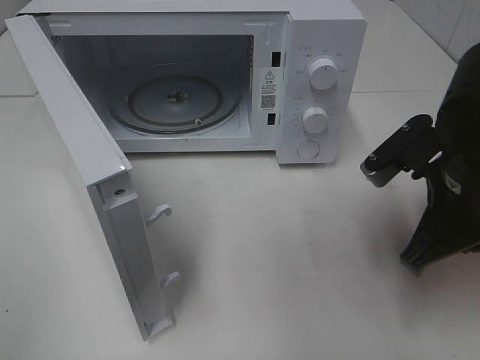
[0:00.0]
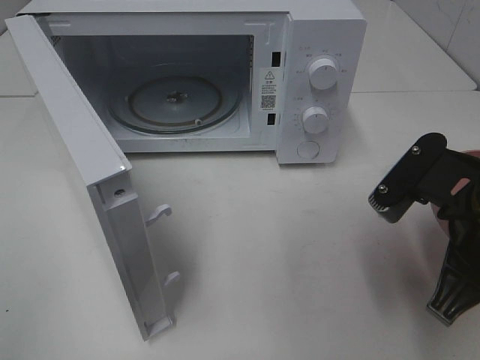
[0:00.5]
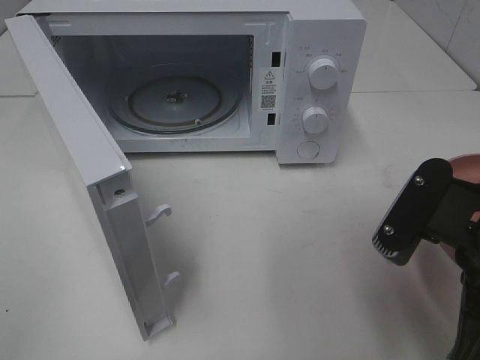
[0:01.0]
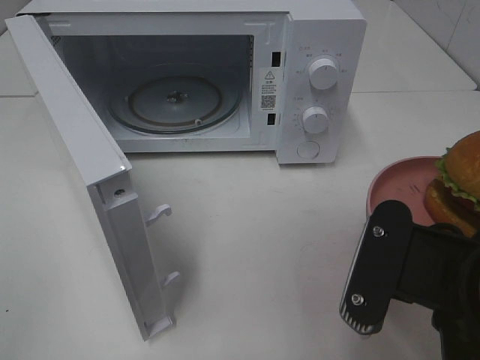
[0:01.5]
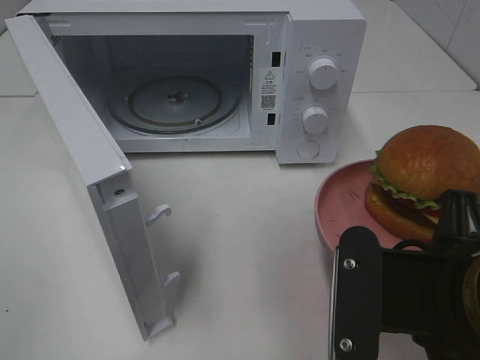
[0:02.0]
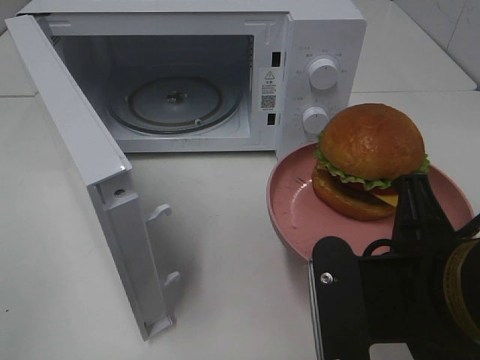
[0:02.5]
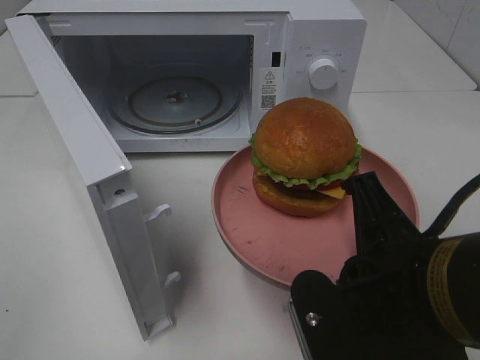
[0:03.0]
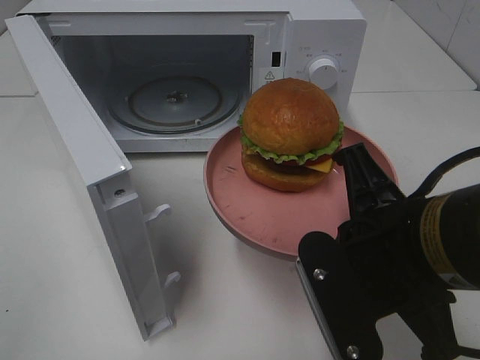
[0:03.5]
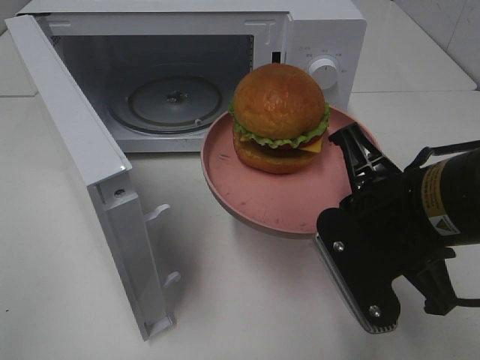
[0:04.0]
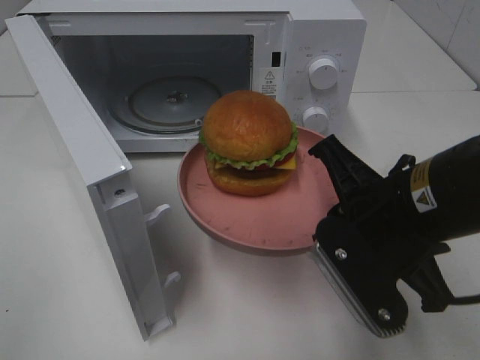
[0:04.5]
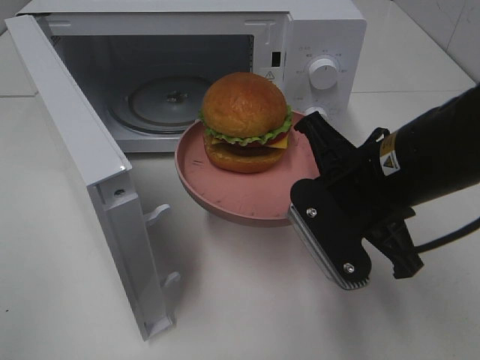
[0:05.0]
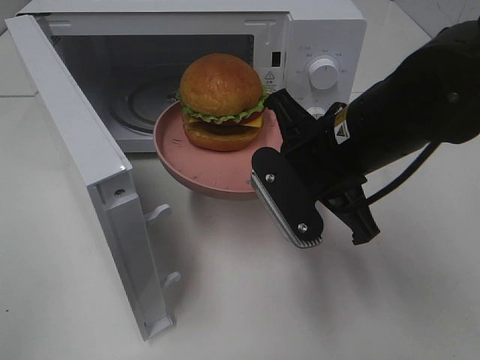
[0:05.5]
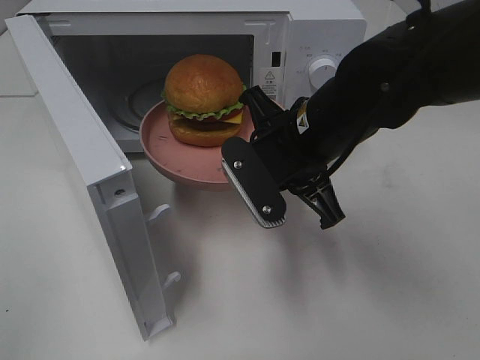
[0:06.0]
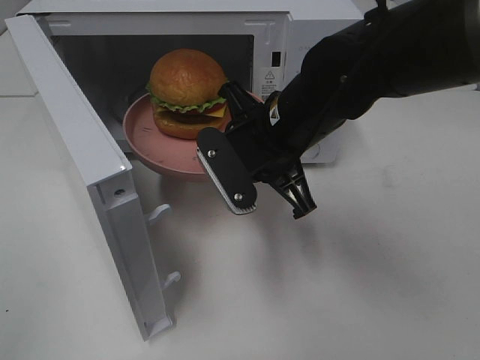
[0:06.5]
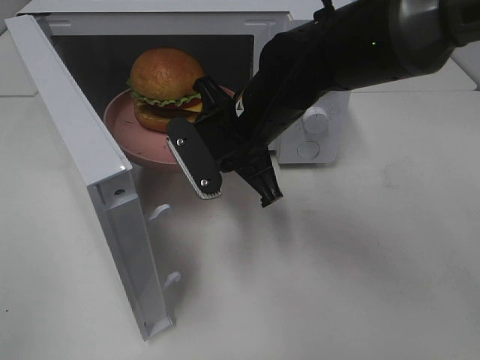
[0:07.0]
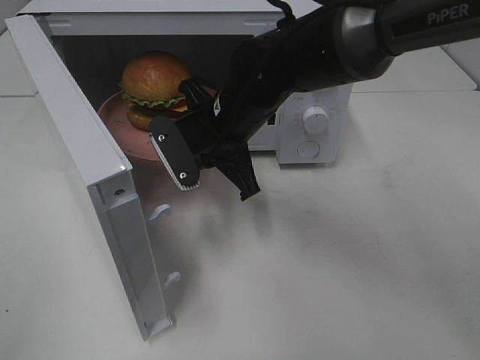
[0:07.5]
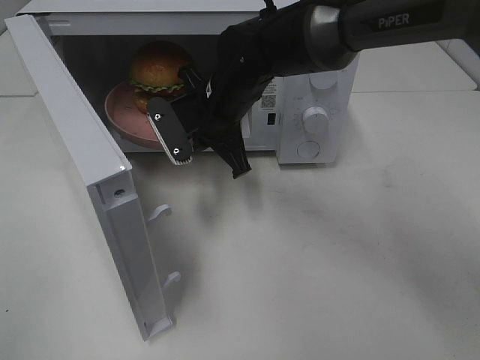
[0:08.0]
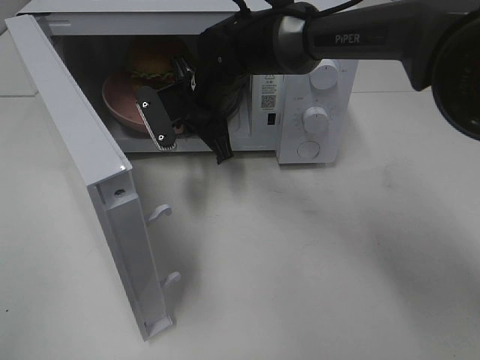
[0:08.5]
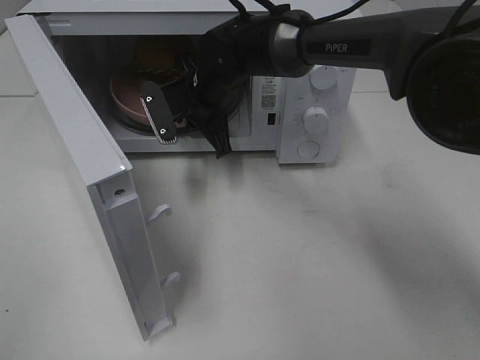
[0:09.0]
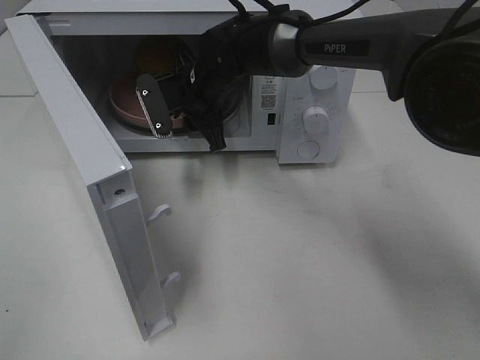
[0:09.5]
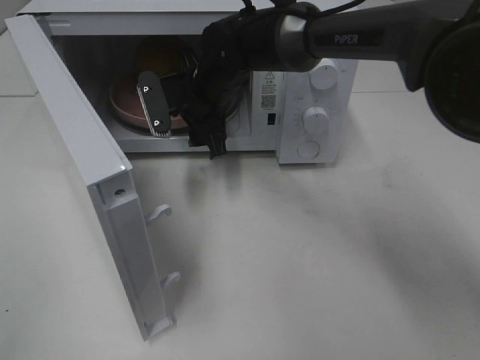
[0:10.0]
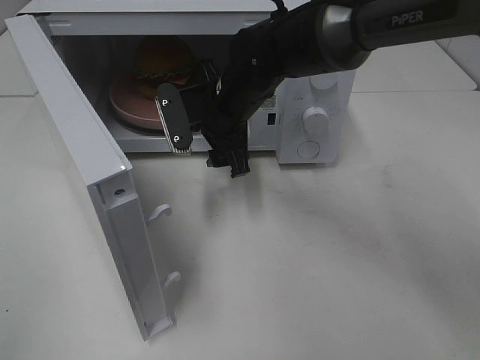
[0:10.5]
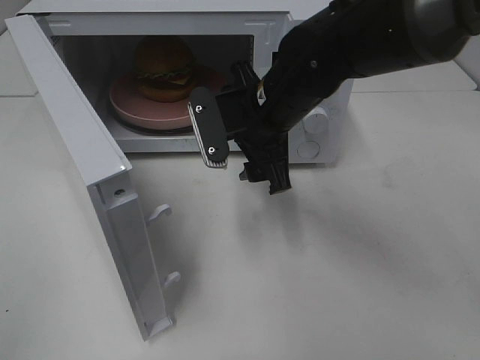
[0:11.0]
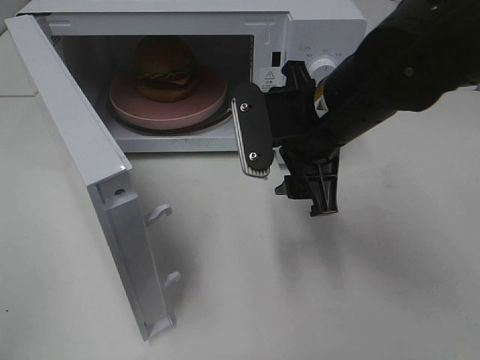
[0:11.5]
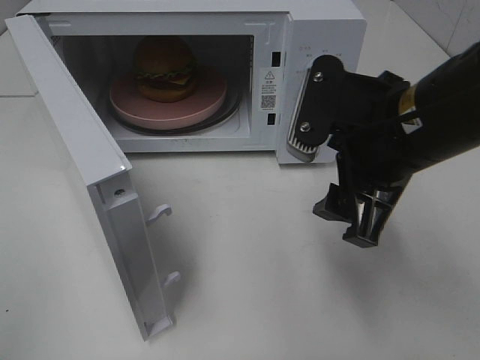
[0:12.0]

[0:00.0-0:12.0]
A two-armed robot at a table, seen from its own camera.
Task of the whole recording: Heat the burger.
Step, 0:00.0 to 0:09.5: Right hand: place the plate in the microwave.
0:00.0 to 0:02.0: The right gripper is displaced backward and to the left by about 15 cm.
0:02.0 to 0:04.0: The right gripper moves forward, roughly 10 cm.
0:04.0 to 0:06.0: The right gripper is displaced forward and to the left by approximately 10 cm.
0:06.0 to 0:08.0: The right gripper is displaced forward and to the left by about 15 cm.
0:08.0 to 0:10.0: The right gripper opens.
0:10.0 to 0:12.0: The right gripper goes some 25 cm backward and to the right.

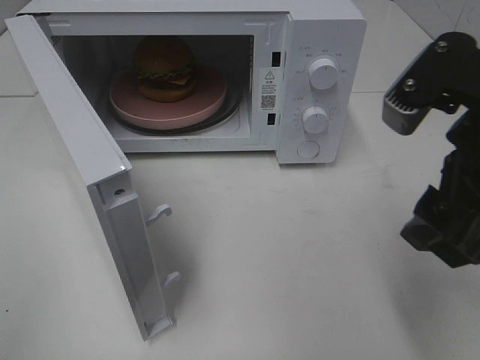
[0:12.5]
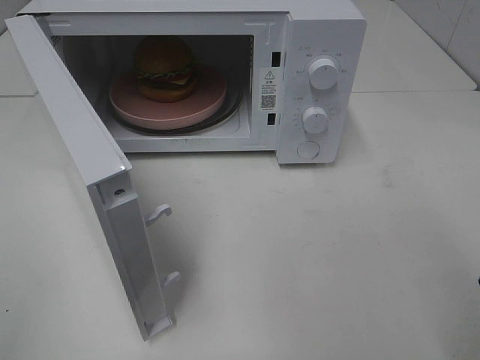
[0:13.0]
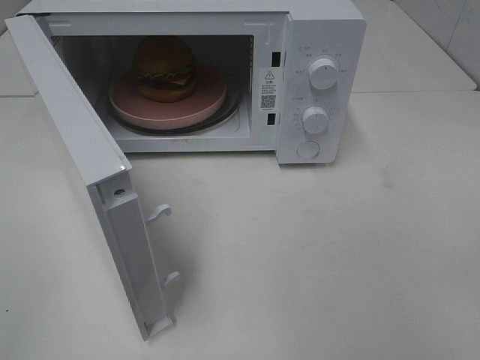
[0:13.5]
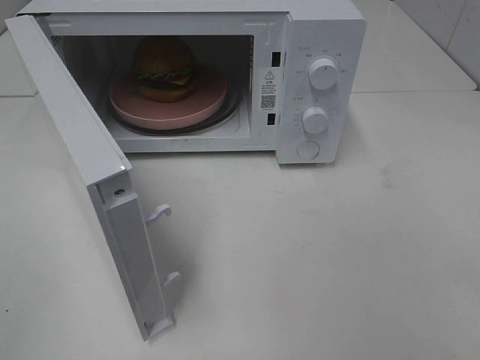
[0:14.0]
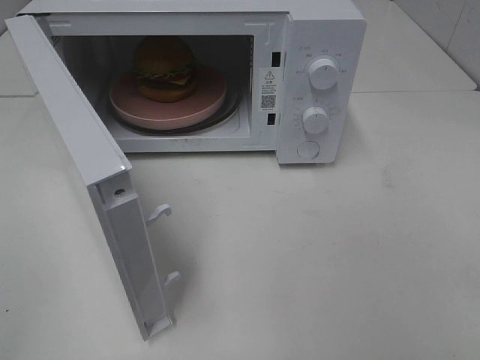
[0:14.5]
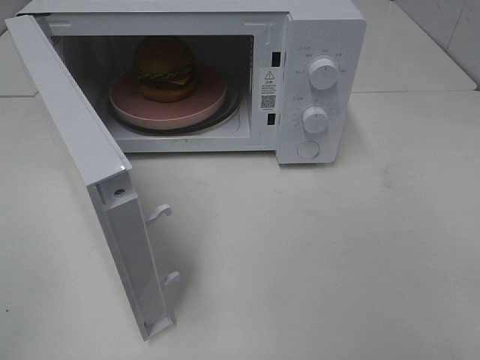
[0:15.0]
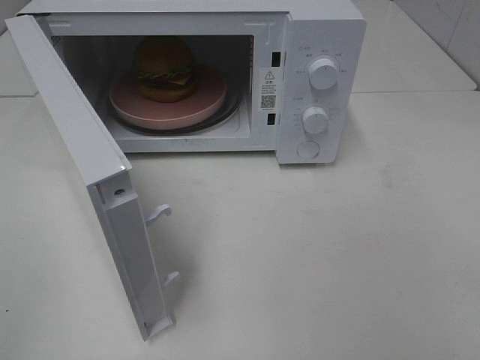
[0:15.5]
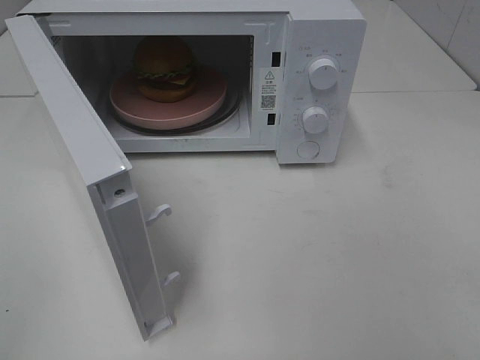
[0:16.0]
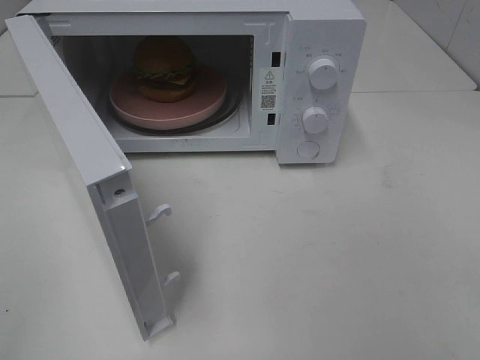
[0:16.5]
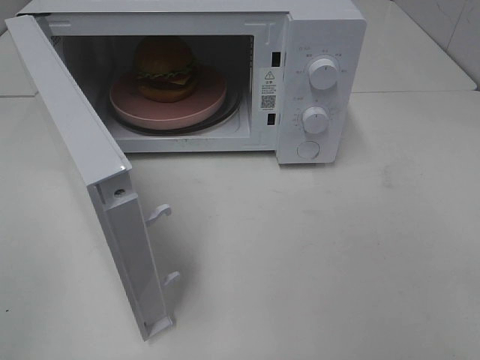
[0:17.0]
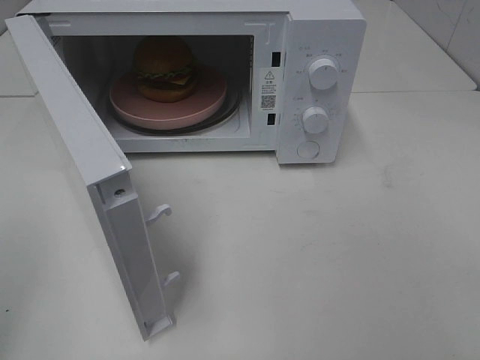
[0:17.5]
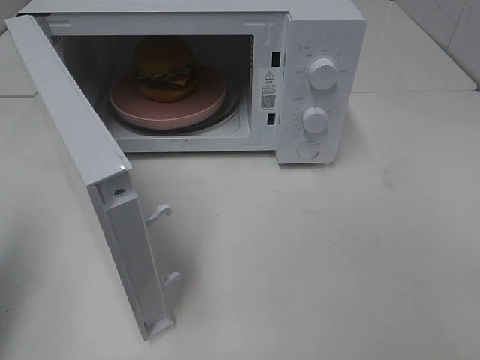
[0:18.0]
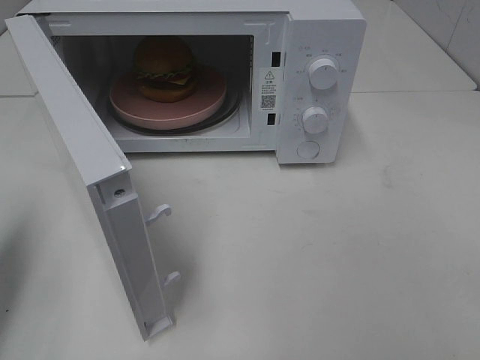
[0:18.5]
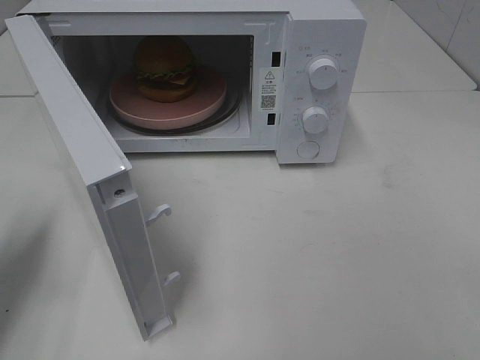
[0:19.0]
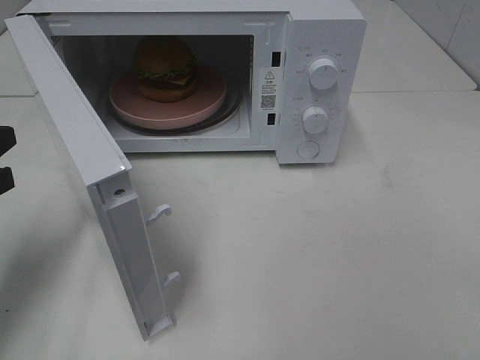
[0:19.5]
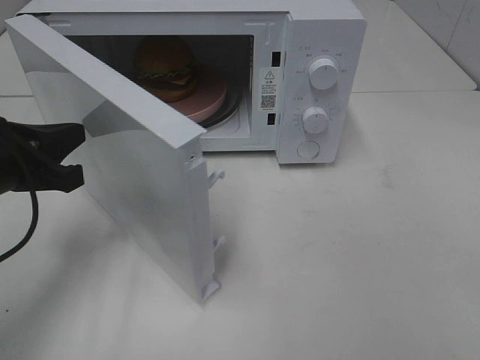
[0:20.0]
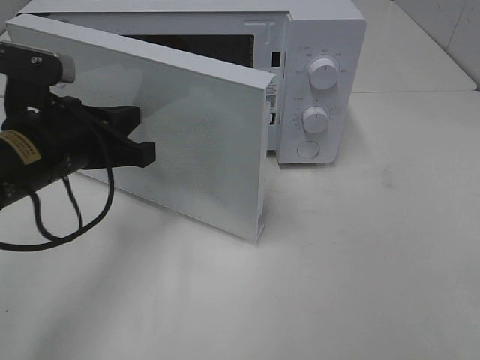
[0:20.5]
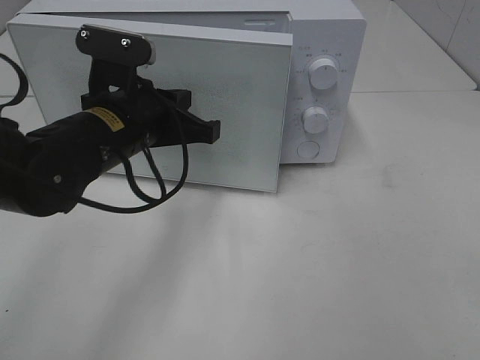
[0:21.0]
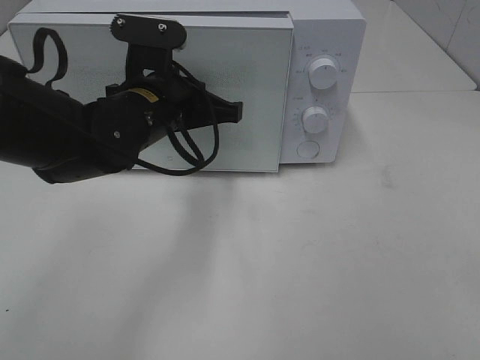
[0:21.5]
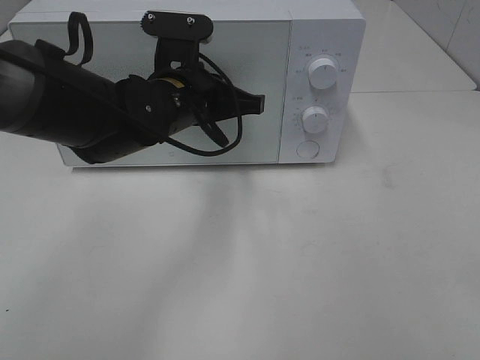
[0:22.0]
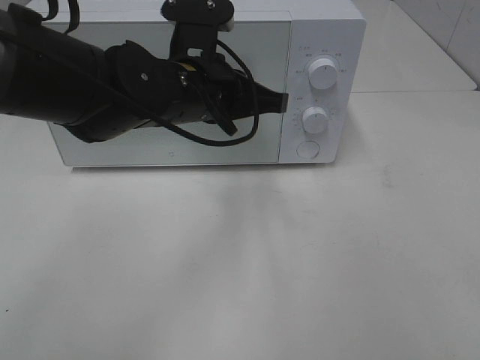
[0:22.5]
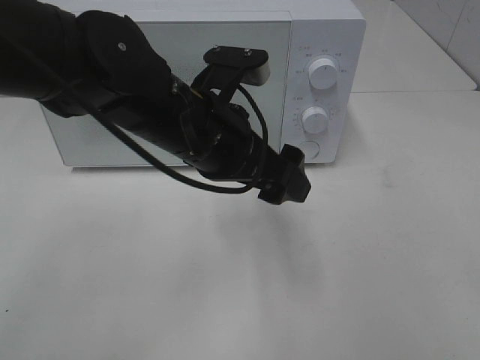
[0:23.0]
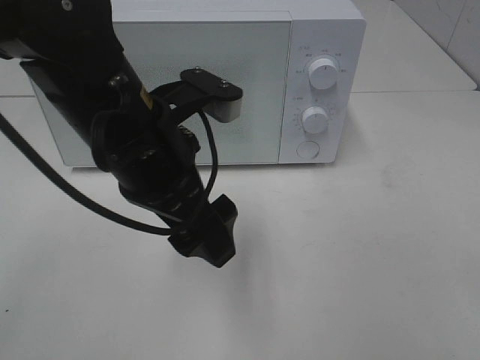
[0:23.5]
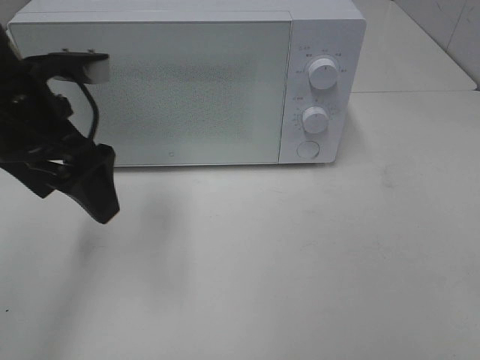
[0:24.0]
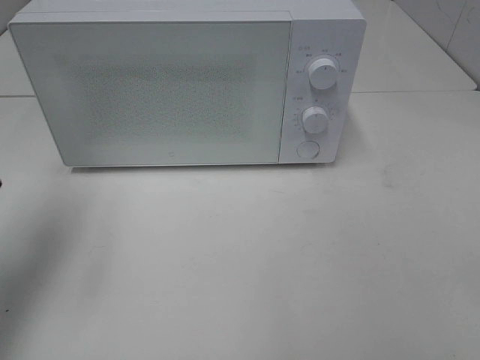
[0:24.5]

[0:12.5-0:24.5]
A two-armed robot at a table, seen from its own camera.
Task of the whole recording: Heat the burger.
Step, 0:12.5 to 0:22.5: Left hand: close the microwave door.
0:12.5 to 0:14.5: The right gripper heads backward and to the right, covering approximately 20 cm.
0:16.5 to 0:18.5: The left gripper shifts some 20 cm forward, and closes.
0:18.5 to 0:20.5: The left gripper shifts some 20 cm to the right and forward.
0:20.5 to 0:22.5: The left gripper travels to the right and forward by some 15 cm.
0:22.5 to 0:24.5: The left gripper shifts about 25 cm to the left, and opens up.

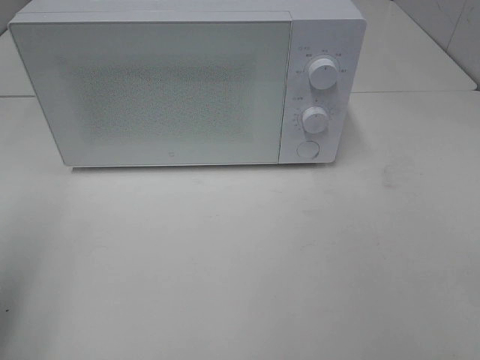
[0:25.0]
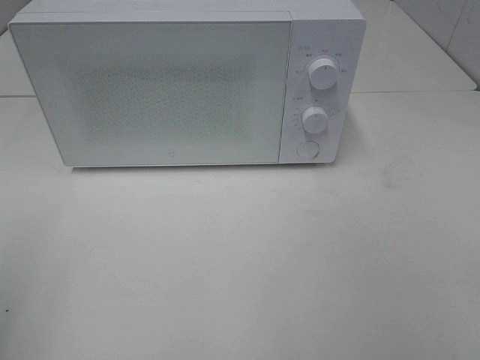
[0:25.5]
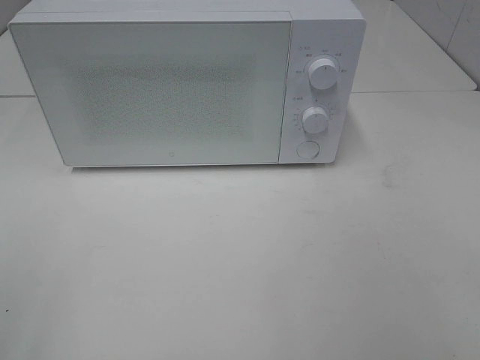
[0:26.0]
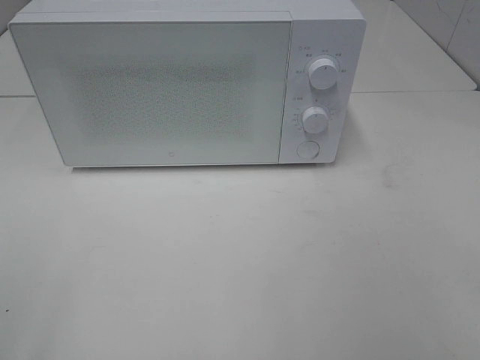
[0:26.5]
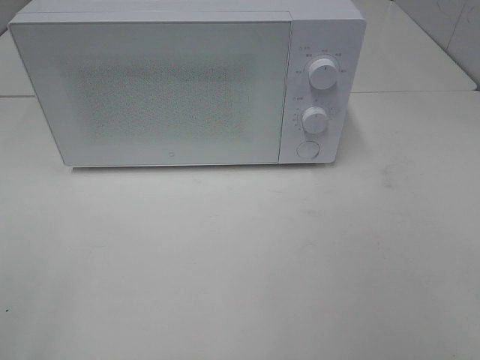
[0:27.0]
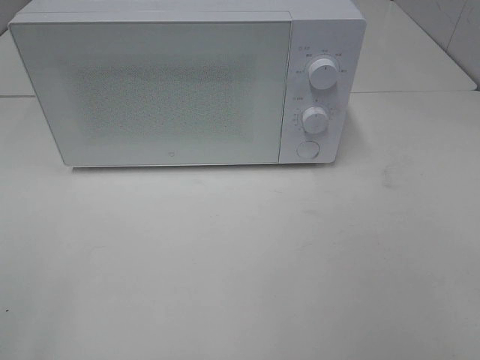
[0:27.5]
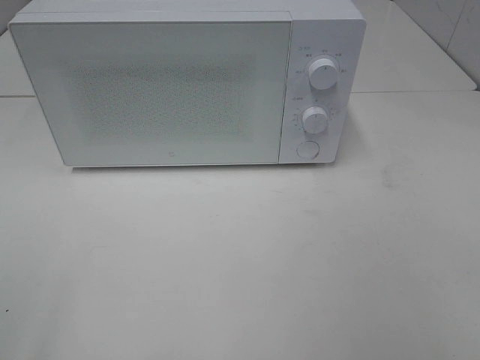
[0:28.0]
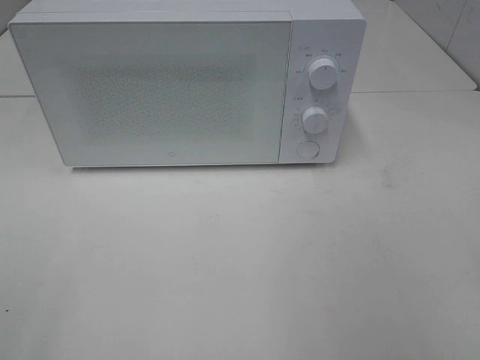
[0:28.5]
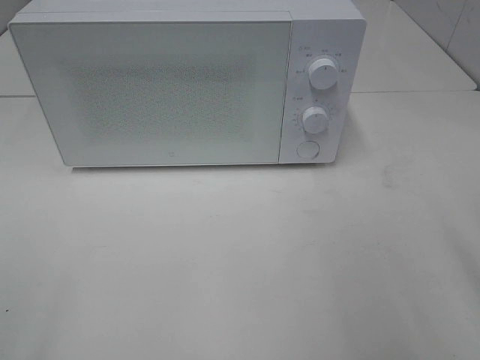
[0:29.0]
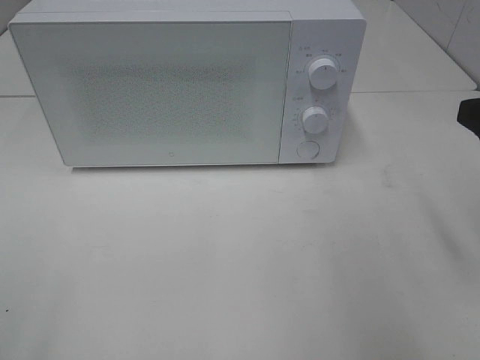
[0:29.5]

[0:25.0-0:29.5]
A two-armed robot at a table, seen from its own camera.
Task of the whole recording: Heat the burger.
0:25.0 to 0:27.0: The left gripper travels backward by roughly 15 cm.
